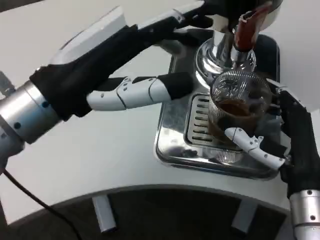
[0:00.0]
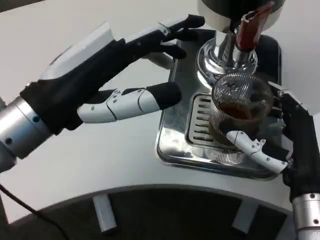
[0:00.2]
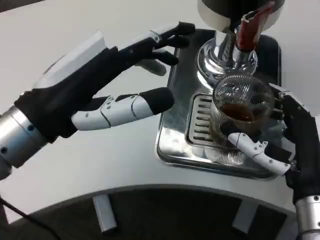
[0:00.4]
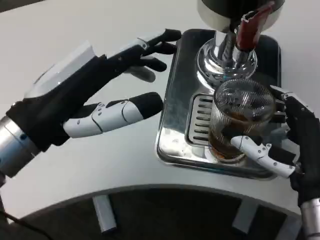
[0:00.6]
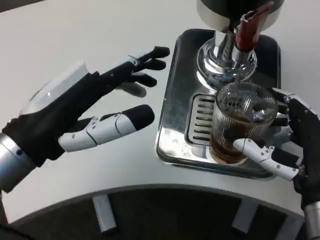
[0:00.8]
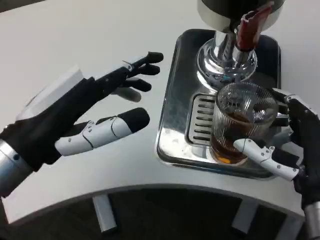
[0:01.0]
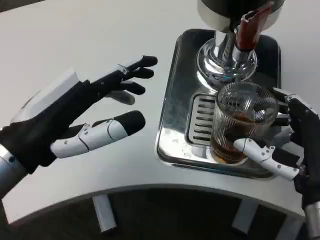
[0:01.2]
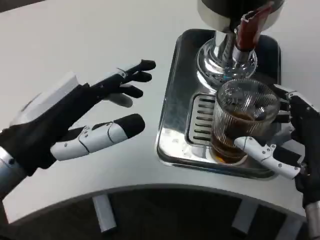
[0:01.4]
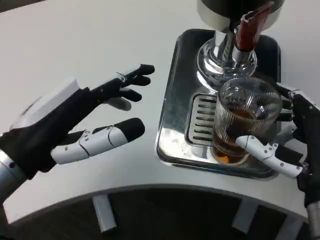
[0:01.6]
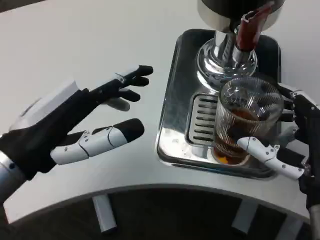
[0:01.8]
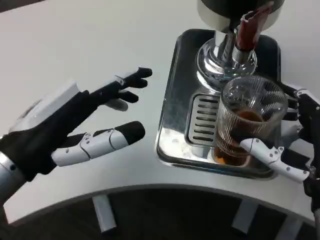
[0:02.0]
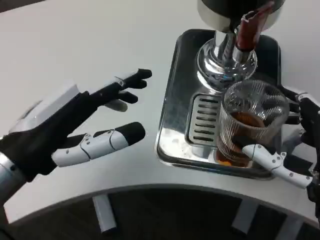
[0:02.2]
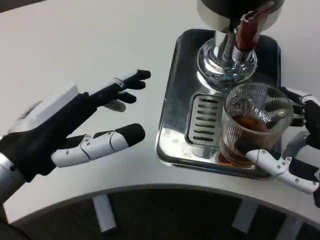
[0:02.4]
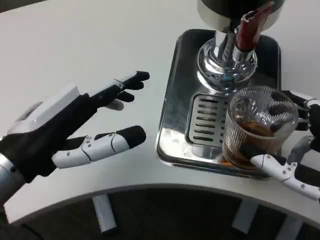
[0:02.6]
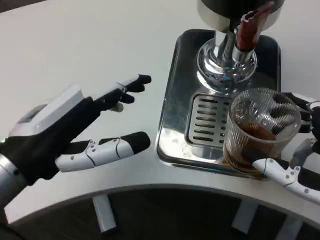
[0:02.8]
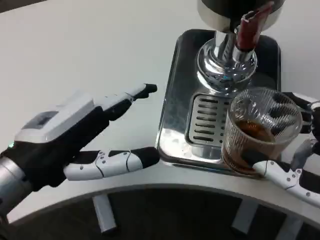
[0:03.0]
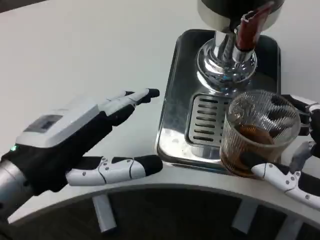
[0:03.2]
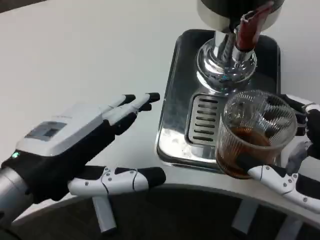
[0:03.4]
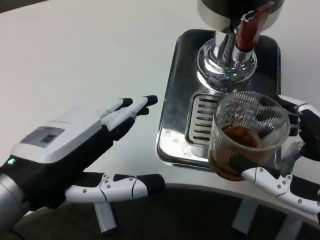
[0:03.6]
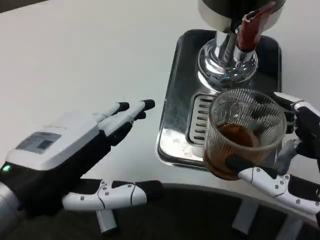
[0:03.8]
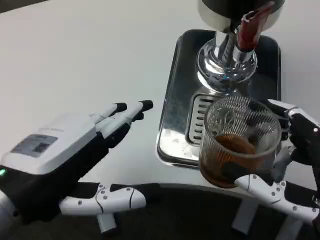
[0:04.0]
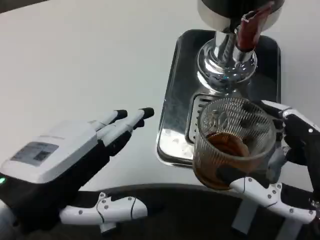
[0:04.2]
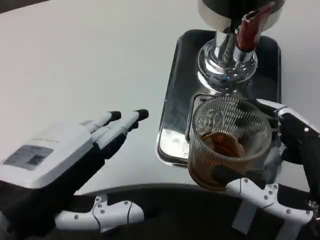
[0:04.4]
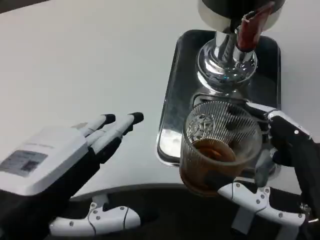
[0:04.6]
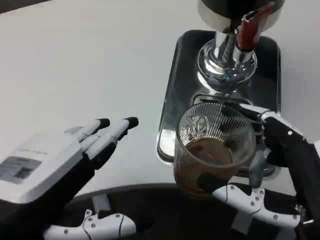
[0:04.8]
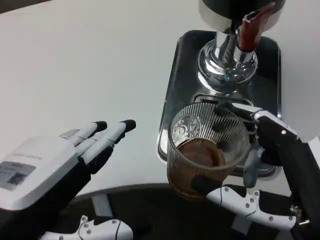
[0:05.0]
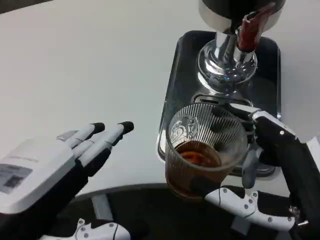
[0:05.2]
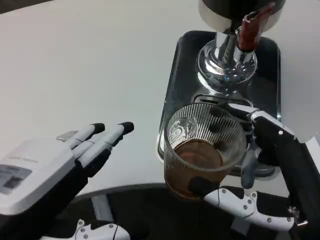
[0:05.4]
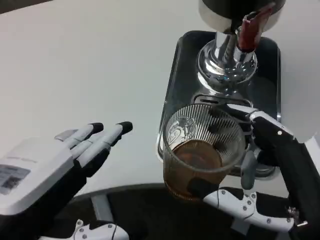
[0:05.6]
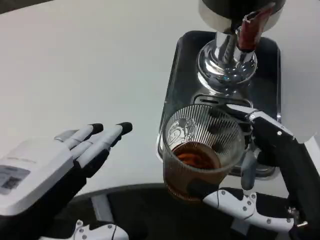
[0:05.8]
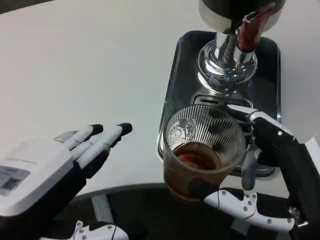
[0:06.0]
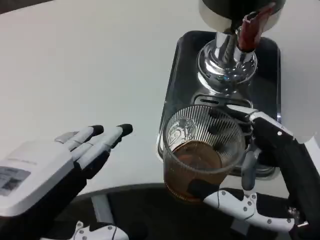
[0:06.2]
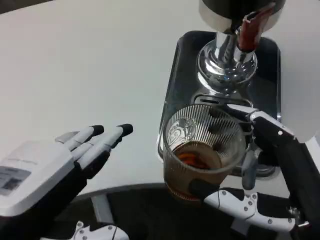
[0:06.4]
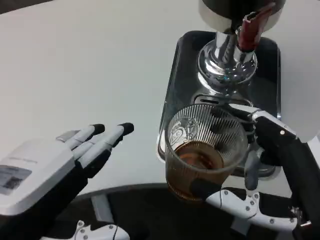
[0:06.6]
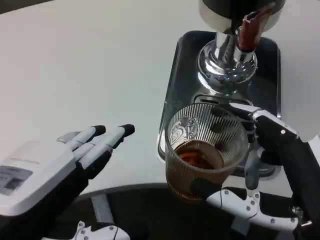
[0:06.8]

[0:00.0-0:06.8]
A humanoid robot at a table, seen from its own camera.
Task of the whole recording: Grasp the cup under the faucet to collect the drink, then remove the cup.
0:00.0 to 0:01.4: The left hand shifts some 5 cm downward.
0:02.8 to 0:04.0: The left hand shifts by roughly 5 cm.
0:05.4 to 0:06.8: Neither hand changes place.

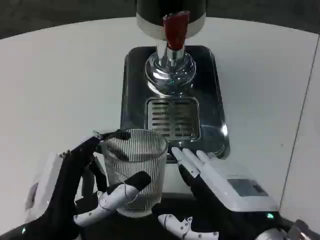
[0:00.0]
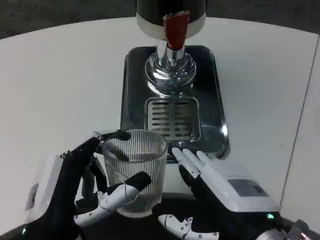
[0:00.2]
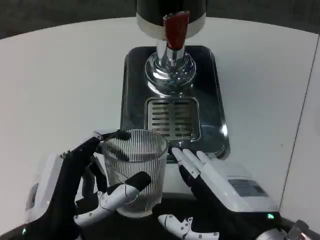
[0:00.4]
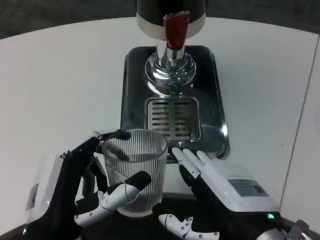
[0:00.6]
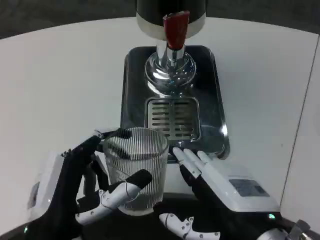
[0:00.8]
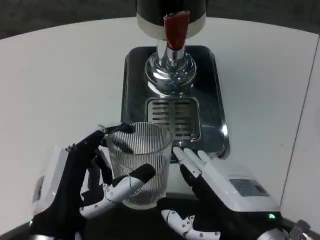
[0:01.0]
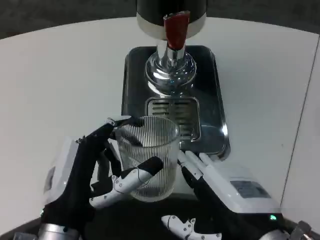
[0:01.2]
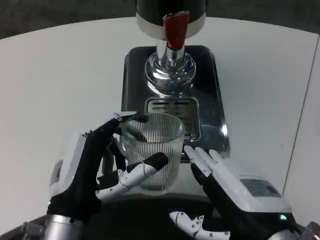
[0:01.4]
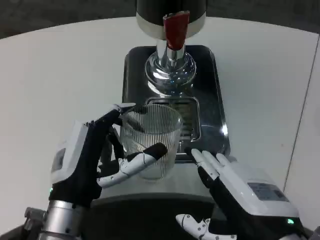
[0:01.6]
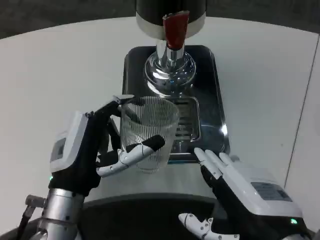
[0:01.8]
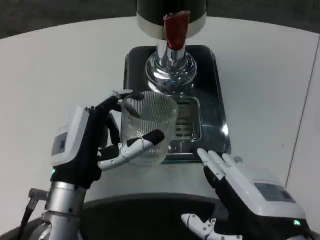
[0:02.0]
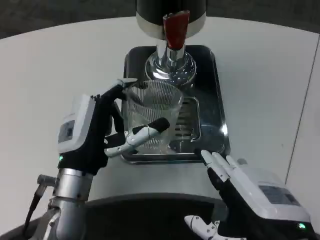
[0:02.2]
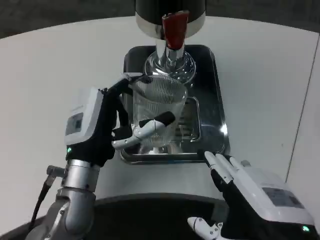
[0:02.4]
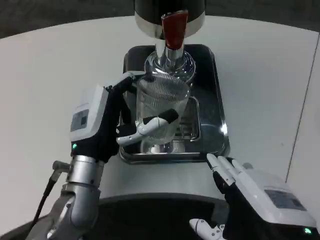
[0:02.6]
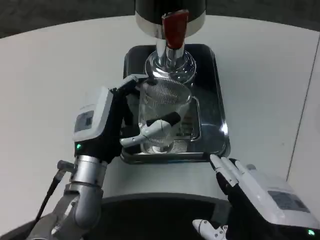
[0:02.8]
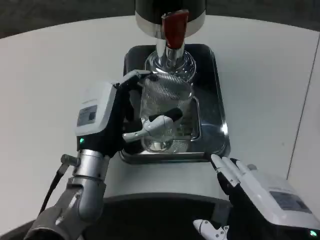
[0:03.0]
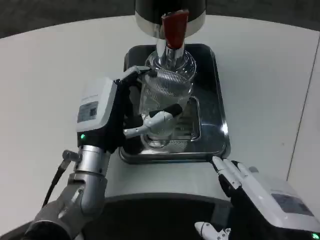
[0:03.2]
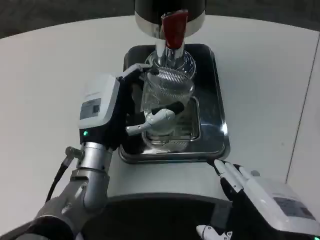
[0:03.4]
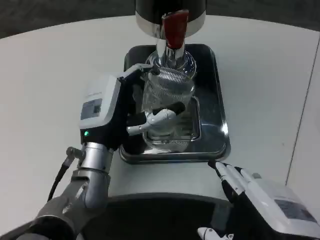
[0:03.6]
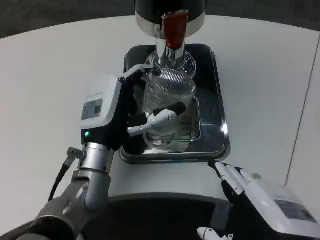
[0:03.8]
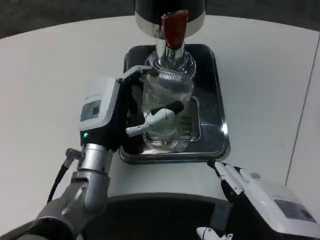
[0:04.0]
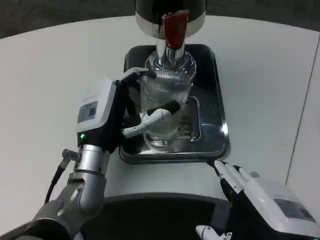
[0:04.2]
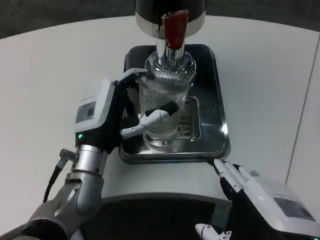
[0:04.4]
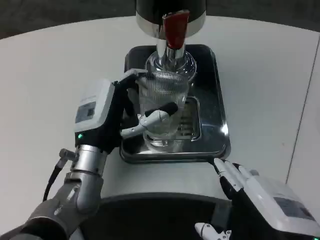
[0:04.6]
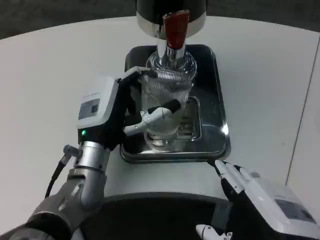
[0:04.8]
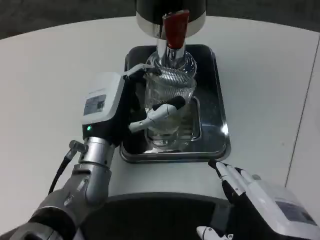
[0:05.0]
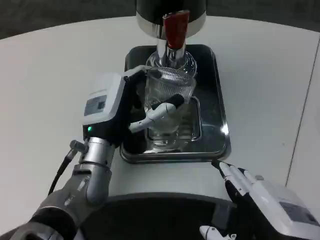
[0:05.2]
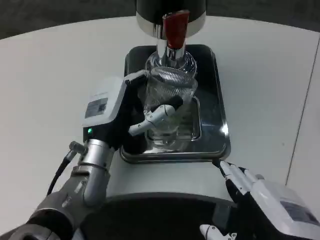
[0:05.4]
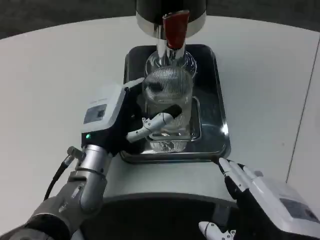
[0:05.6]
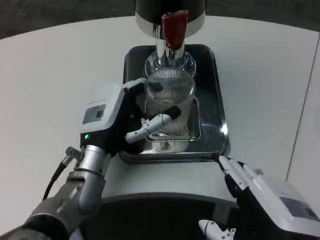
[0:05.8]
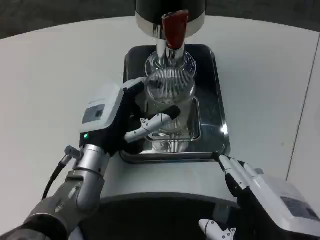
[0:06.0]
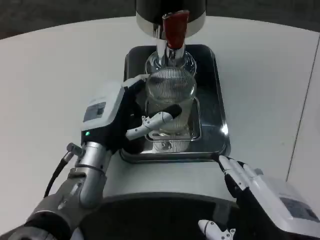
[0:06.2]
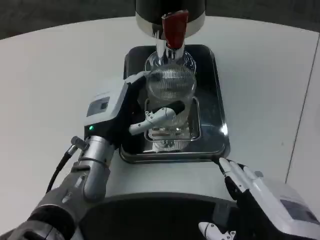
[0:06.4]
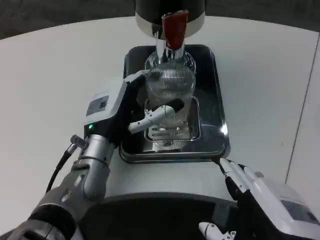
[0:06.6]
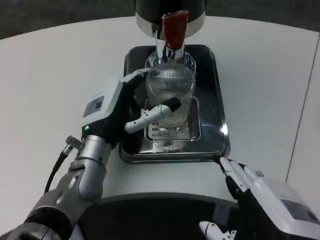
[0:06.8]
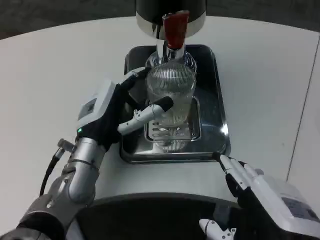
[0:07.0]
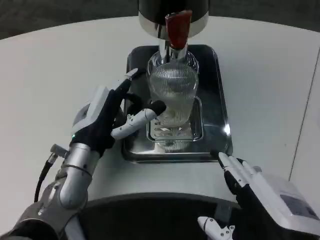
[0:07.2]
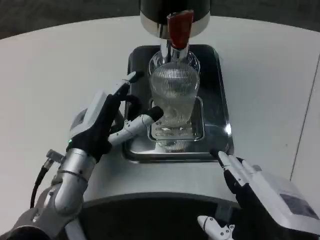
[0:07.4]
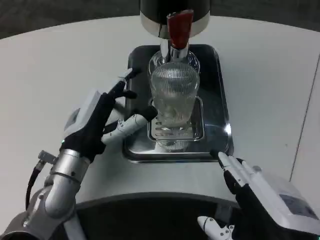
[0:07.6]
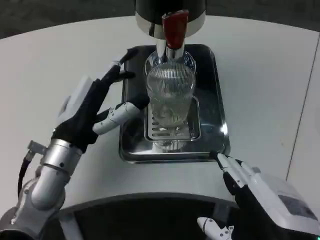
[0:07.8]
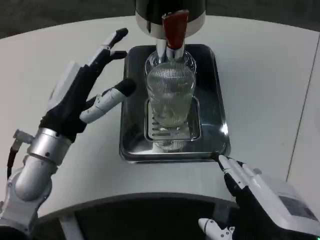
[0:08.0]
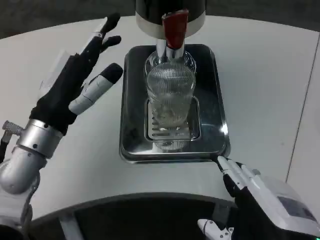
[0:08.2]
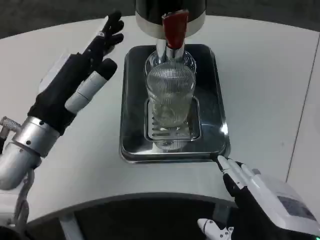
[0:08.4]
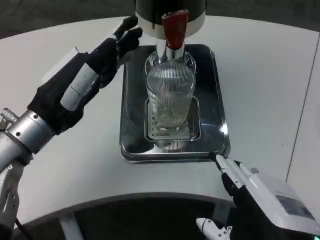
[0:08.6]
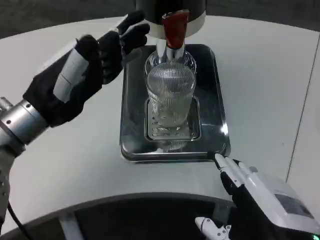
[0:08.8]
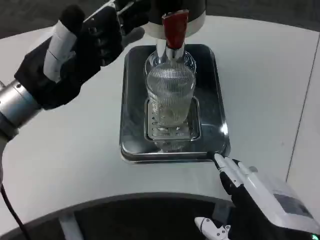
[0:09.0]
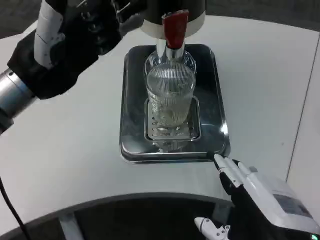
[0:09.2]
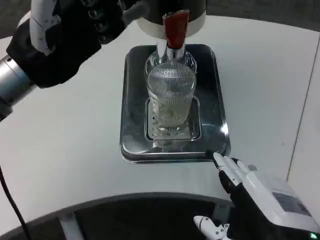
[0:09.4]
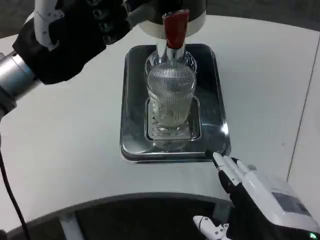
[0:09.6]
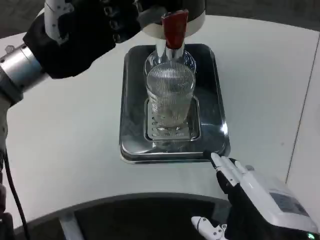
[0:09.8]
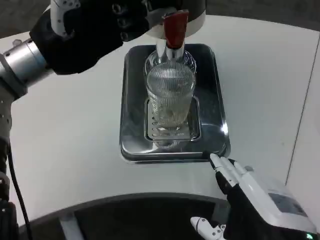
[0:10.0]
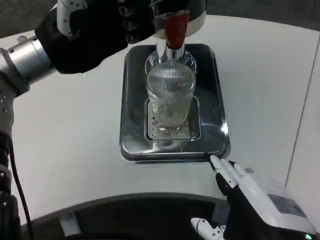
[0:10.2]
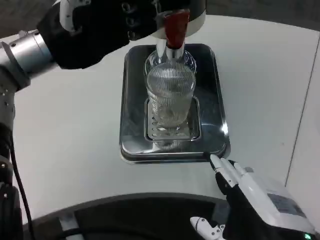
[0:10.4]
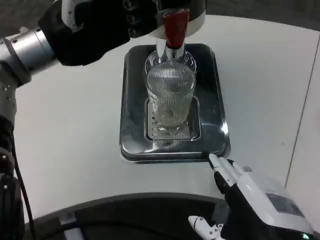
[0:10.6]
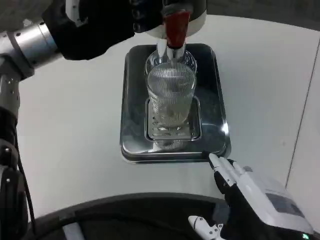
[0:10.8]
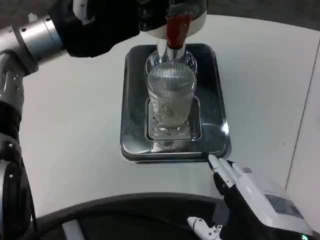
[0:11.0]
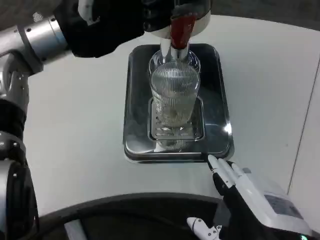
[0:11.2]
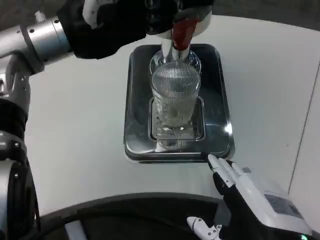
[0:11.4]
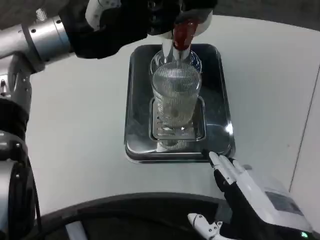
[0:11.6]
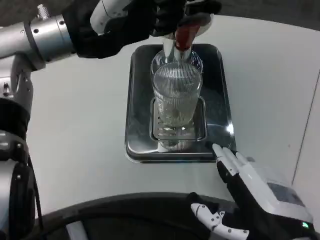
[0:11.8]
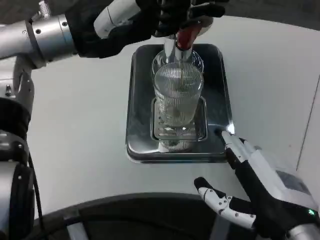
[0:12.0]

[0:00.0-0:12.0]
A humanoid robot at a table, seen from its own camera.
Task of the whole recording: Grasp the cup under the faucet to collect the drink, then remove the cup.
0:00.0 to 0:01.6: The left hand is displaced forward by some 5 cm.
0:01.6 to 0:03.0: The left hand goes approximately 10 cm forward.
0:03.0 to 0:04.4: Both hands stay put.
0:04.4 to 0:07.6: There are only small adjustments of the hands.
0:07.6 to 0:09.0: The left hand moves upward and to the left, some 15 cm.
0:09.0 to 0:10.4: The left hand moves upward, roughly 5 cm.

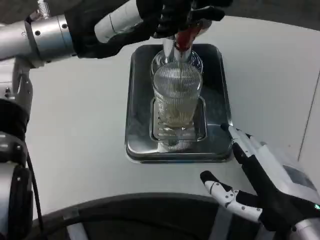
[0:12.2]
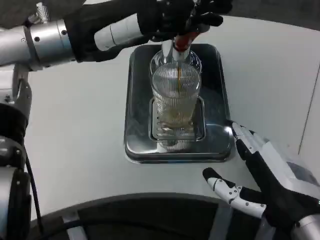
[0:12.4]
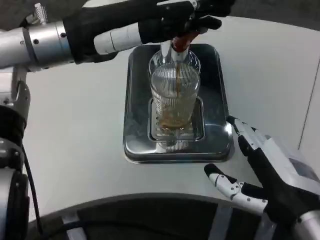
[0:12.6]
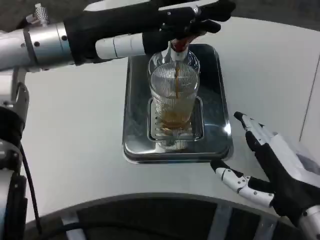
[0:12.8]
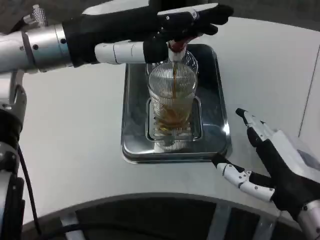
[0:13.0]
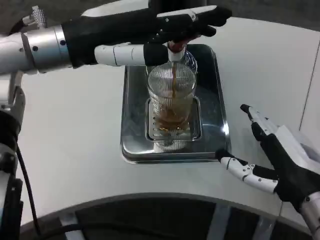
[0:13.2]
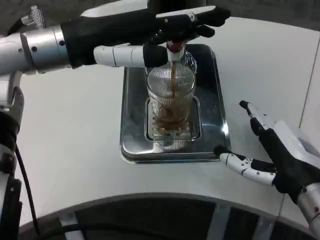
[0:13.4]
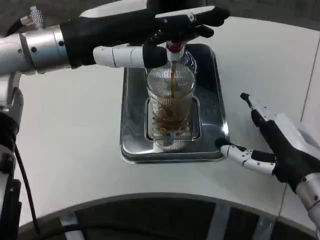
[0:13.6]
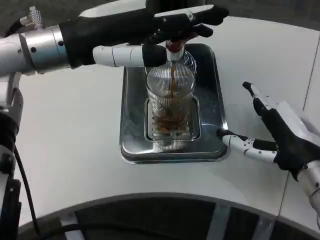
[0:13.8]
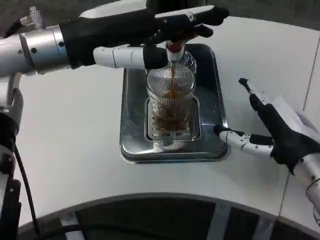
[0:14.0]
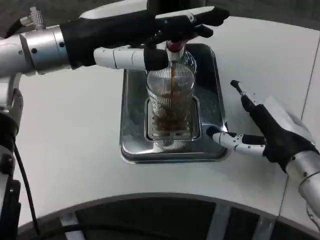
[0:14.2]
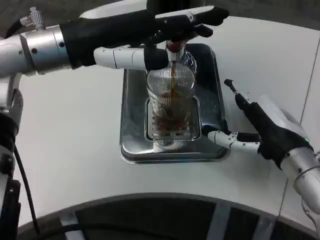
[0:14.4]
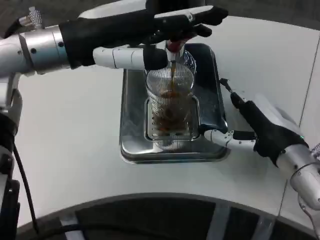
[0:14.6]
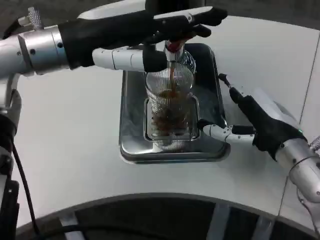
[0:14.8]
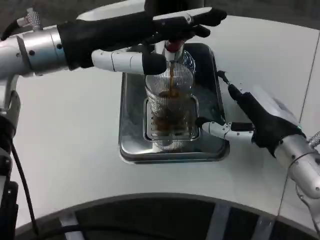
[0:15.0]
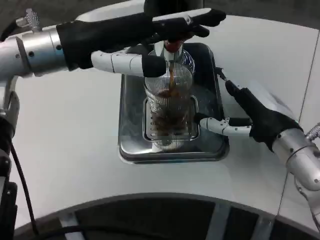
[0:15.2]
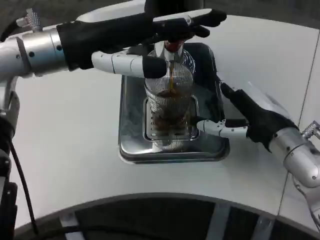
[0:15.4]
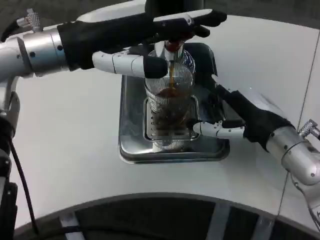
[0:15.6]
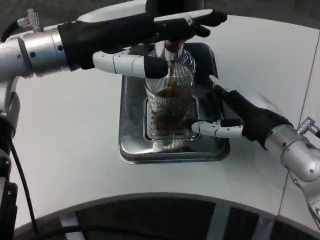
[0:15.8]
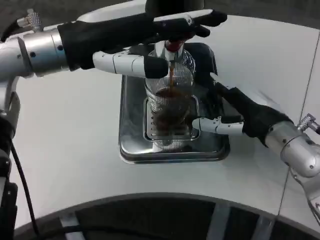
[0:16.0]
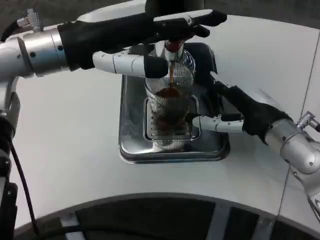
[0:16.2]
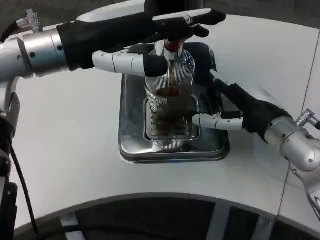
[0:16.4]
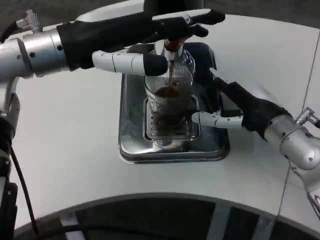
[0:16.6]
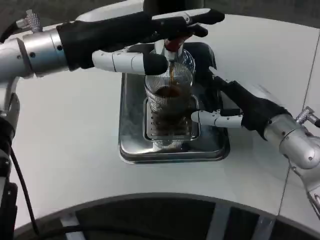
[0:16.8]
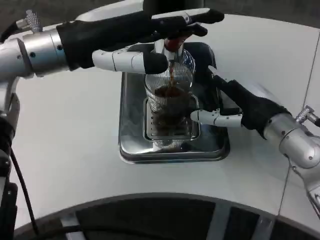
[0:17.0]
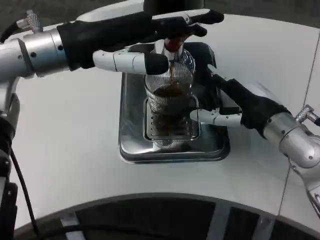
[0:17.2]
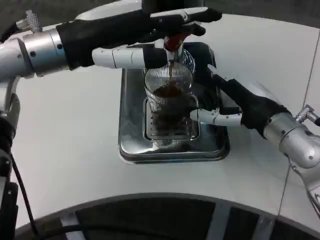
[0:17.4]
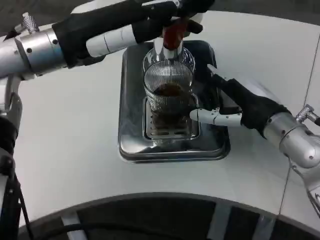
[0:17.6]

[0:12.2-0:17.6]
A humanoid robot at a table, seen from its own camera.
Task of the whole recording: Grasp the cup under the faucet to collect the drink, then remove the cup.
0:12.2 to 0:13.6: The right hand goes roughly 5 cm forward.
0:13.6 to 0:15.0: The right hand is displaced forward by roughly 5 cm.
0:15.0 to 0:16.2: There are only small adjustments of the hands.
